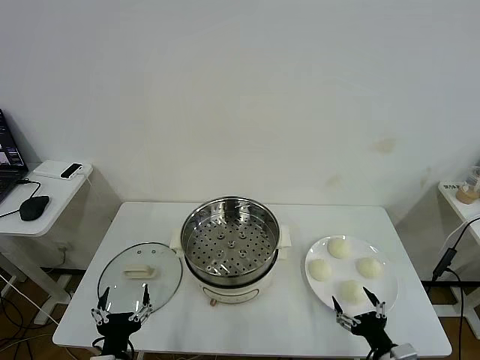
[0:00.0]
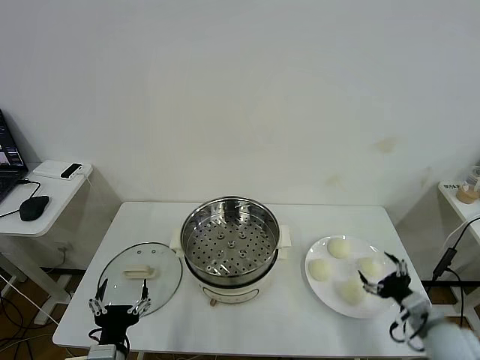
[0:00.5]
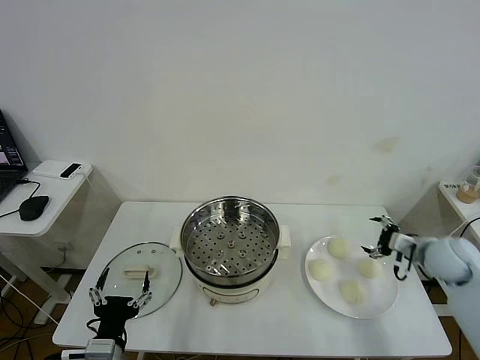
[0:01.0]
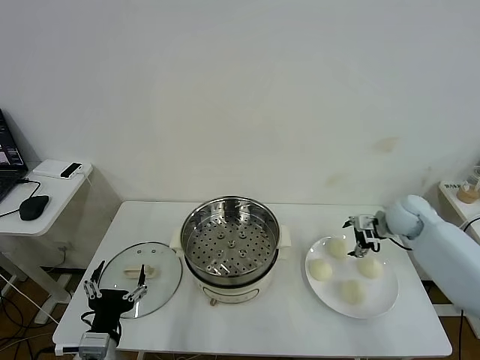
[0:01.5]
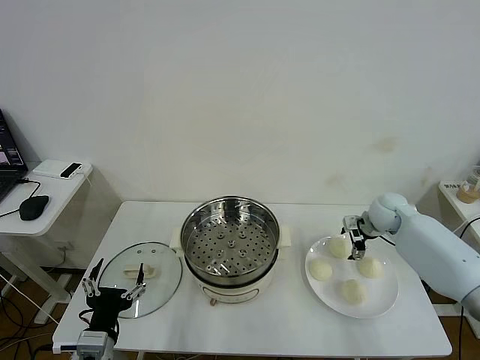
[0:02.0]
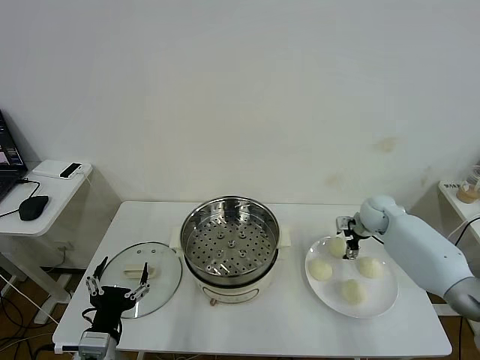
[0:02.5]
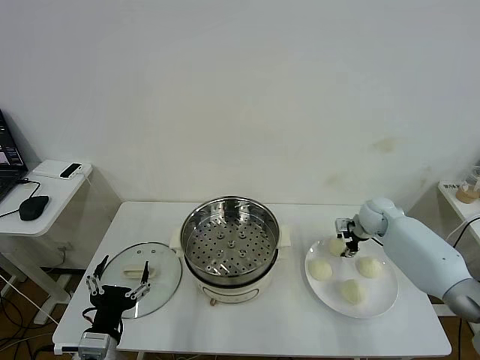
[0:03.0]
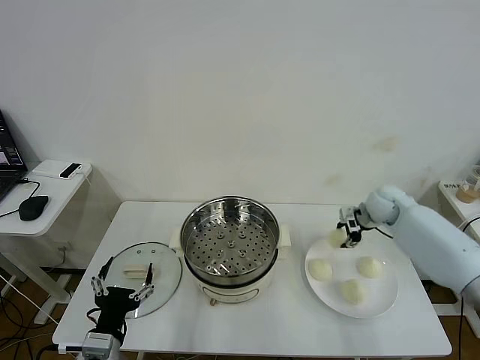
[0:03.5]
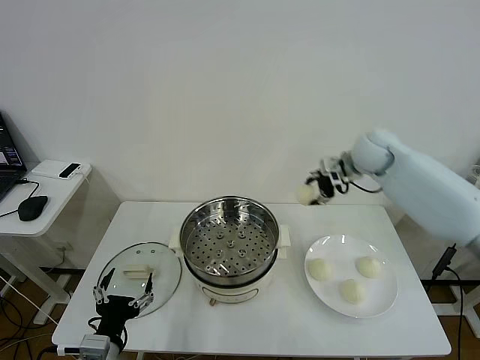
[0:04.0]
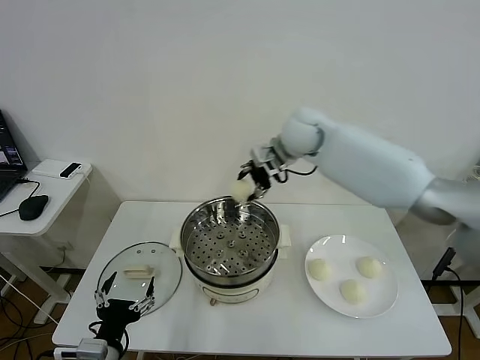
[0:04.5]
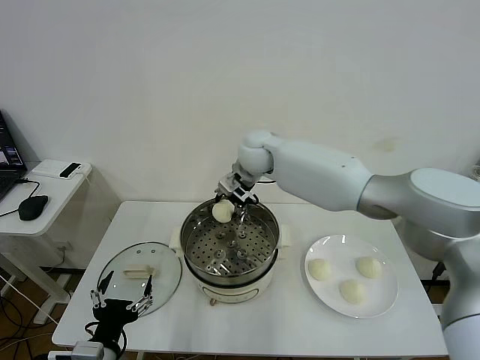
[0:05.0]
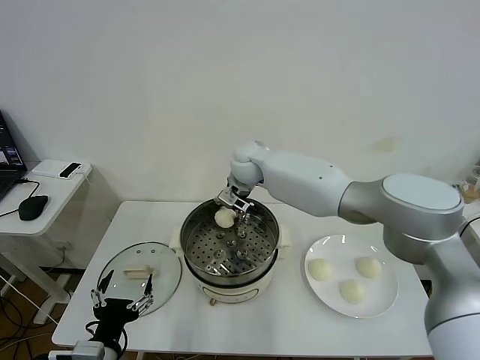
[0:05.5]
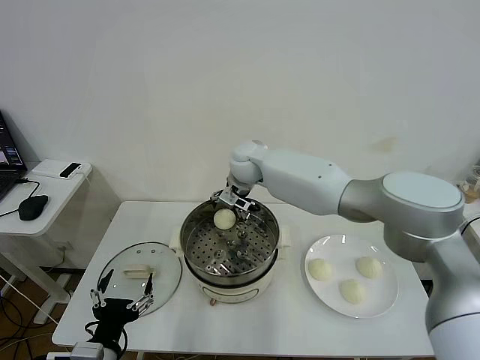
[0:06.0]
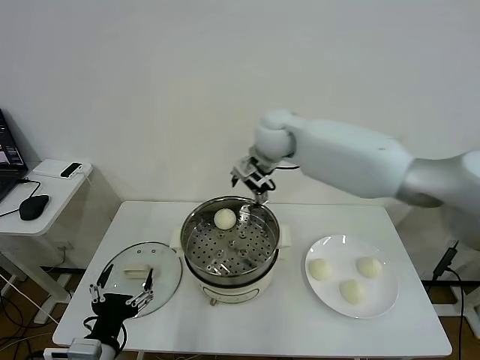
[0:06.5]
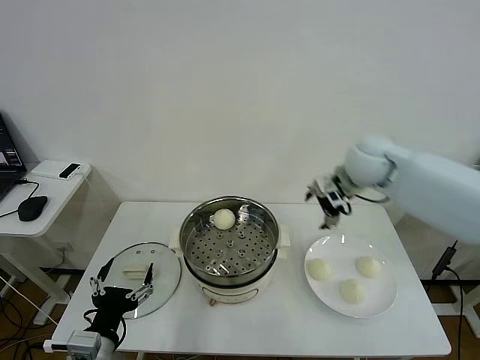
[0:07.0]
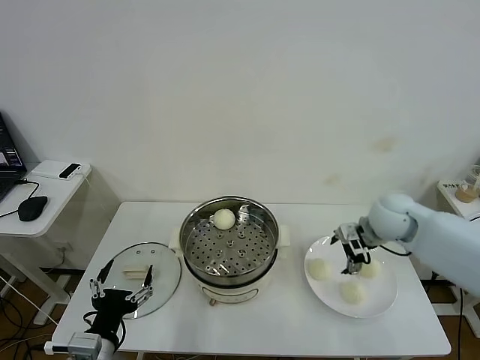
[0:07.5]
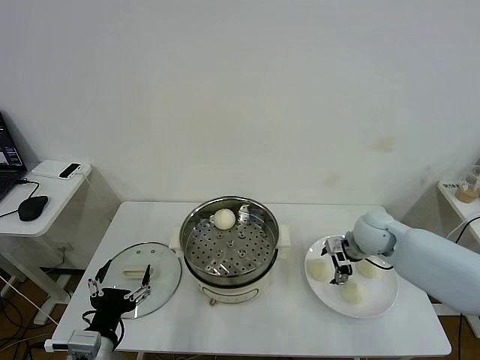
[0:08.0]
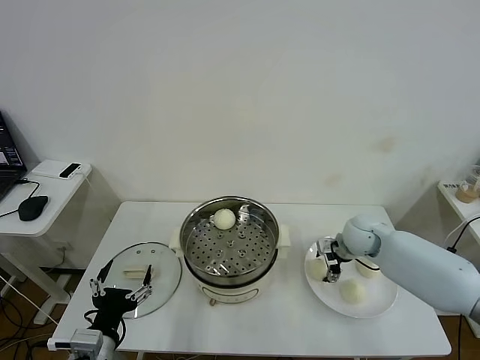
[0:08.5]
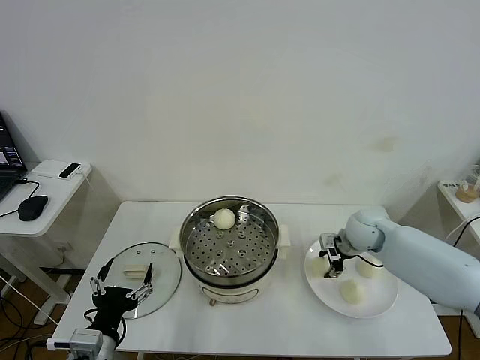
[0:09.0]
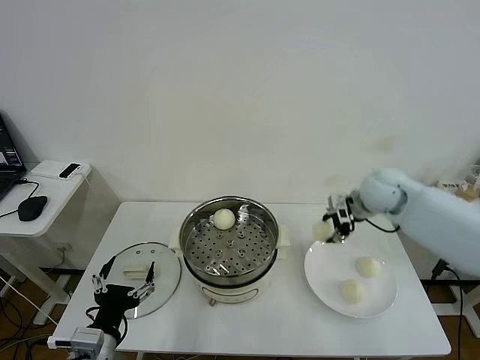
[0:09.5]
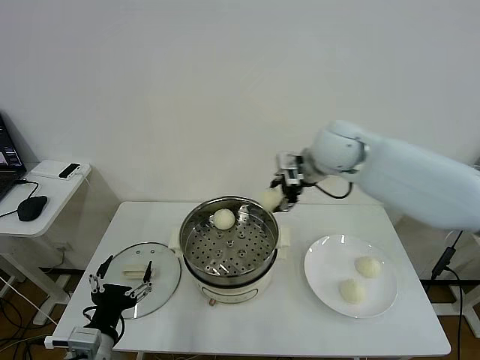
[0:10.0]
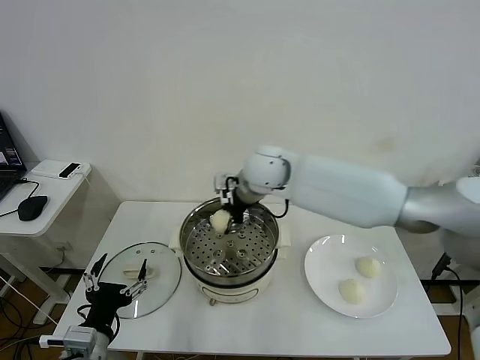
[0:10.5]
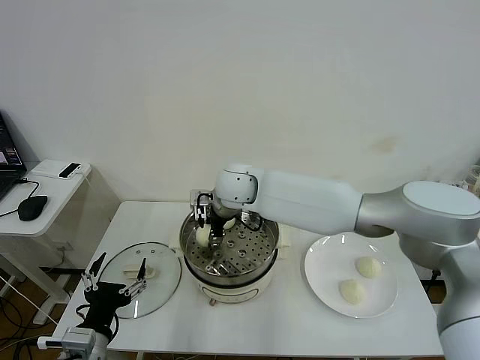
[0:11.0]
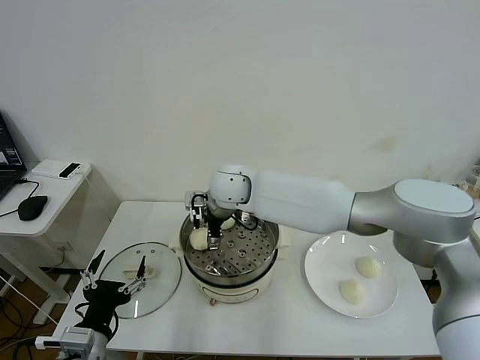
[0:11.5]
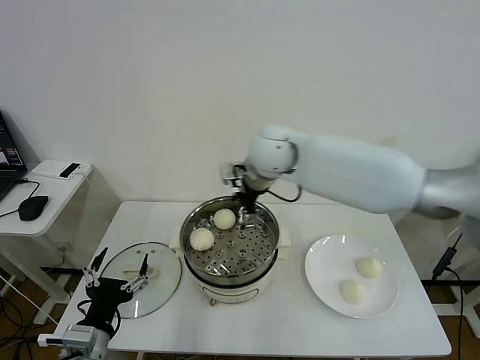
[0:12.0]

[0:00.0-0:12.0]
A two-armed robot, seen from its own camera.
Task of the whole recording: take steamed baozi put them in steamer then cover it.
Step, 0:00.0 to 0:02.5: Grasp the baozi in the plate with right gripper.
Step, 0:03.5 to 0:05.5: Place the baozi on the steamer with right gripper.
Step, 0:06.0 to 0:08.5: Grasp the baozi in the plate with right gripper.
Step, 0:09.0 to 0:11.0: Place the baozi on the steamer with right gripper.
0:02.0 to 0:04.0: The right gripper is displaced upward and to the left by approximately 20 cm, and closes up.
0:04.0 to 0:06.0: The right gripper shifts approximately 25 cm to the left, and opens up.
0:06.0 to 0:08.0: The right gripper moves to the right and backward, roughly 30 cm.
0:08.0 to 0:10.0: The right gripper goes some 25 cm upward and to the left, and closes its fingers.
0:10.0 to 0:12.0: The right gripper is displaced to the left by some 10 cm, and opens up.

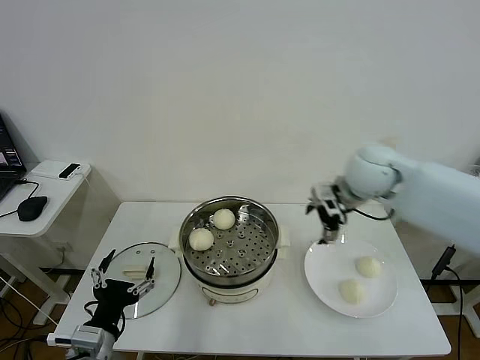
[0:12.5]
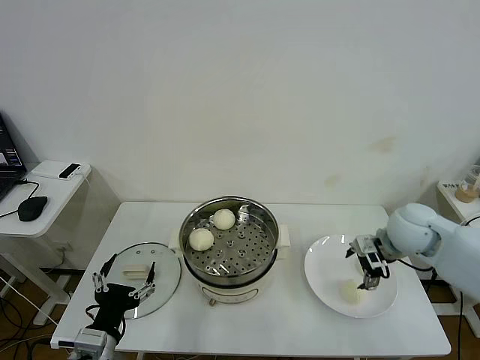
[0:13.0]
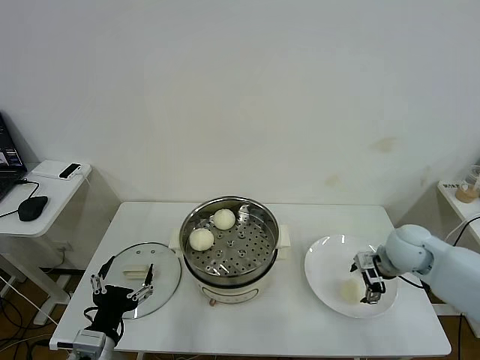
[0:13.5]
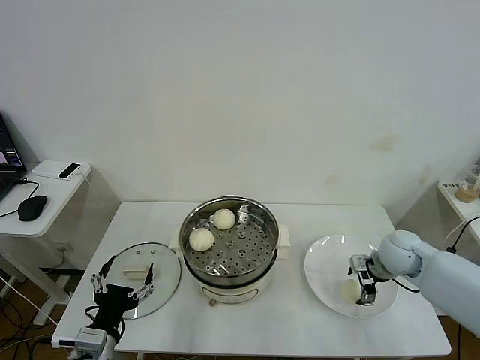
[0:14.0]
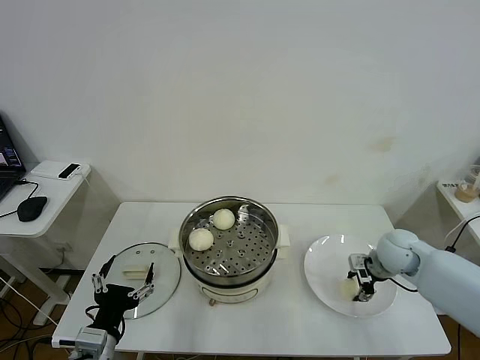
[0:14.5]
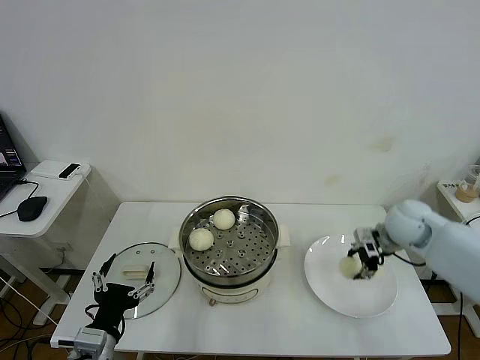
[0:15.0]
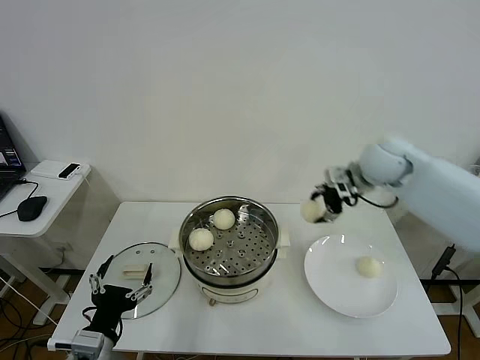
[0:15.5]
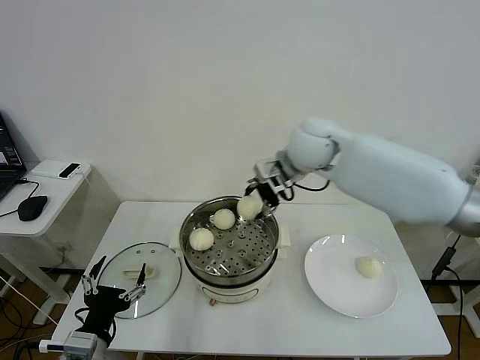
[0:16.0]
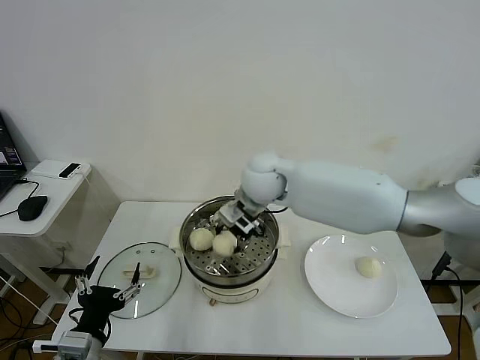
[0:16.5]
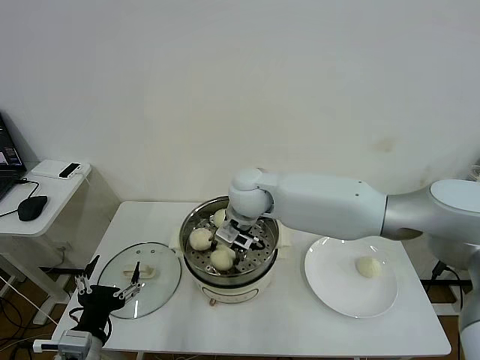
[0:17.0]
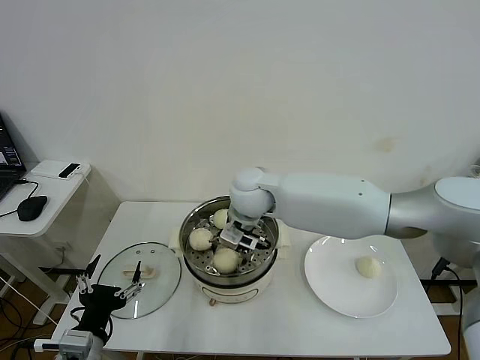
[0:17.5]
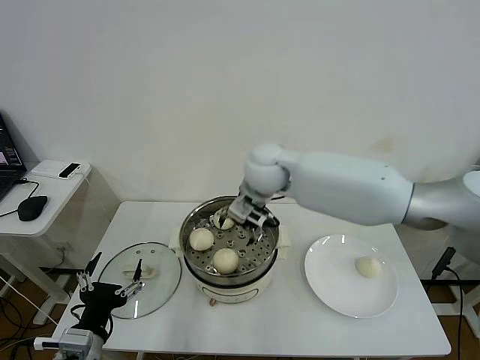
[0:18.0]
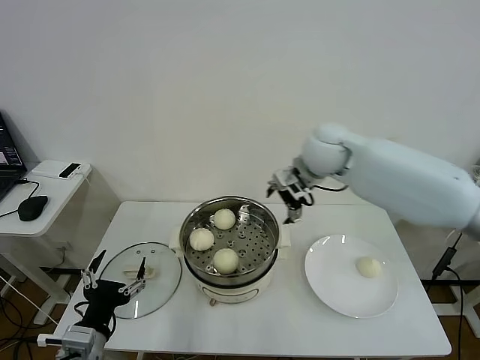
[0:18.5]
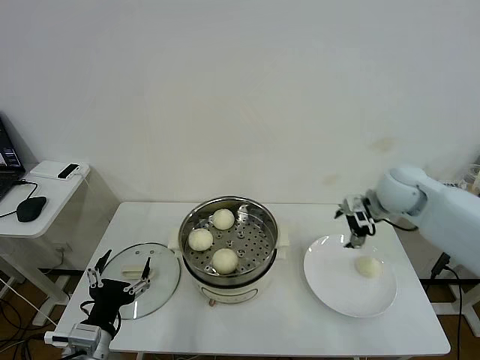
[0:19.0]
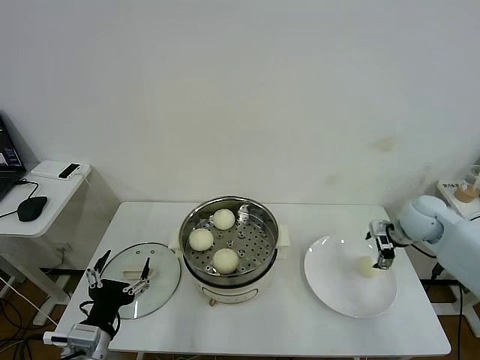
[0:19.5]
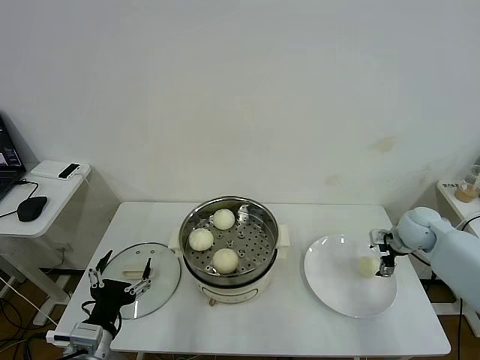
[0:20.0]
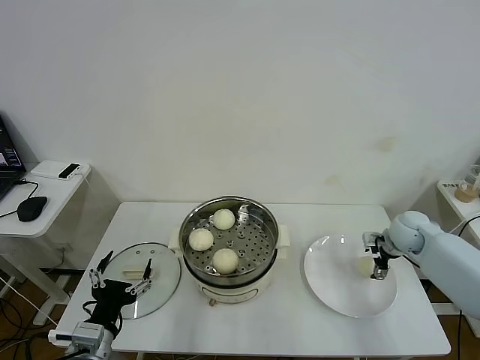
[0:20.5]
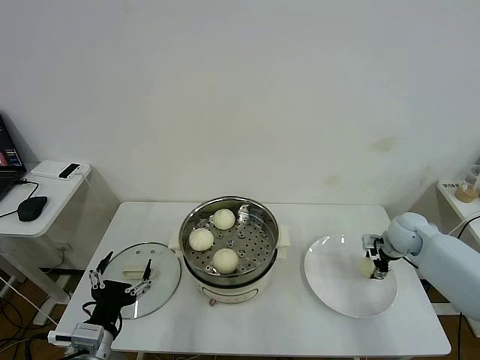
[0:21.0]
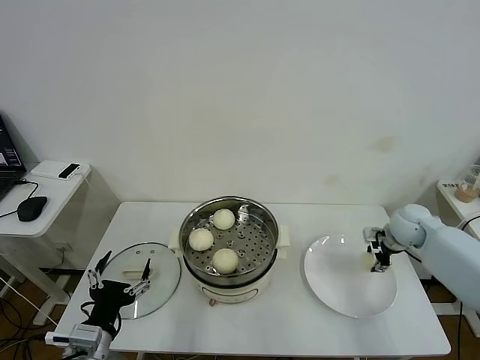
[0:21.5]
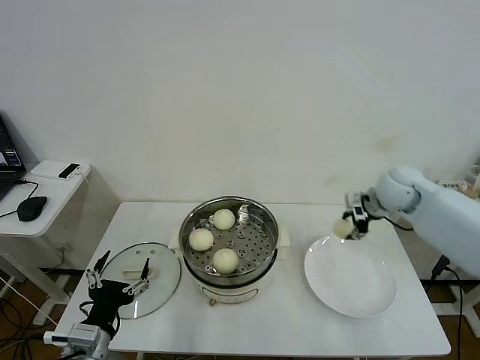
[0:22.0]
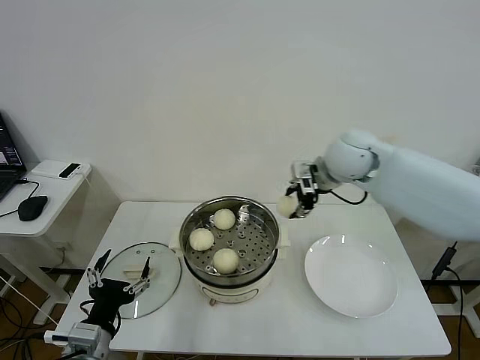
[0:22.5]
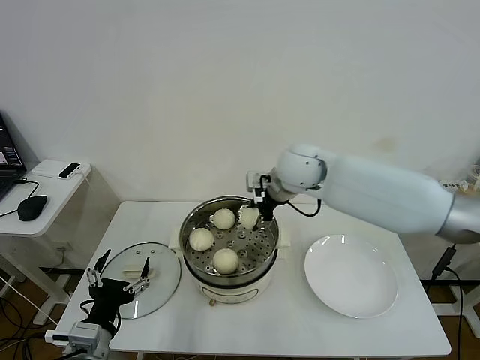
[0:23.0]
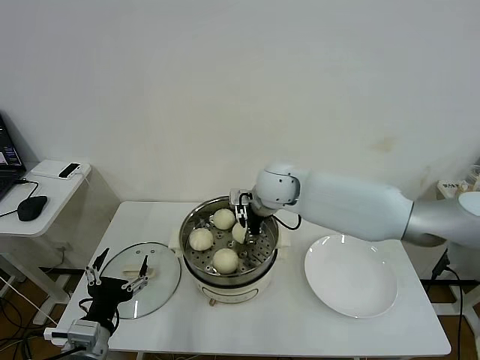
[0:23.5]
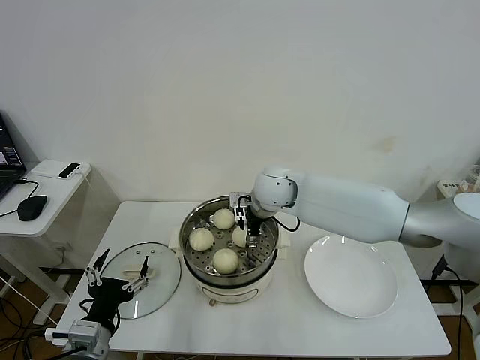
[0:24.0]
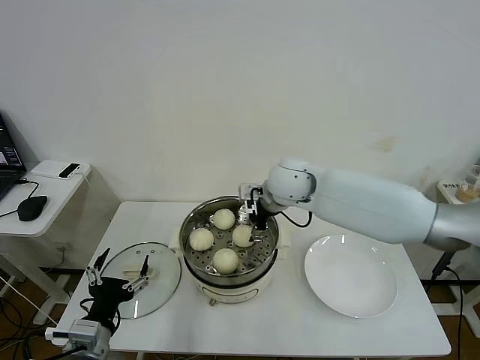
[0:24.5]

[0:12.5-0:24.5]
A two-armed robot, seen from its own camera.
Task of the whole recording: take steamed baozi put them in steamer then cover it.
Step, 0:12.5 to 0:14.0: Grasp the baozi in the plate with right gripper.
Step, 0:15.0 to 0:17.5: Place the baozi on the steamer with right gripper.
Step, 0:18.0 to 0:21.0: Grasp the baozi in the plate with right gripper.
Step, 0:21.5 to 0:24.0: Place the baozi on the steamer with right gripper.
0:12.5 to 0:14.5: The right gripper shifts roughly 25 cm downward and to the right, and closes up.
0:14.5 to 0:16.5: The right gripper goes some 35 cm to the left and upward.
0:16.5 to 0:18.5: The right gripper is displaced to the right and upward by approximately 15 cm, and opens.
0:18.5 to 0:20.5: The right gripper goes some 35 cm to the right and downward.
0:20.5 to 0:22.5: The right gripper moves upward and to the left, roughly 30 cm, and closes up.
0:22.5 to 0:24.5: The right gripper shifts some 15 cm to the left and downward, and opens.

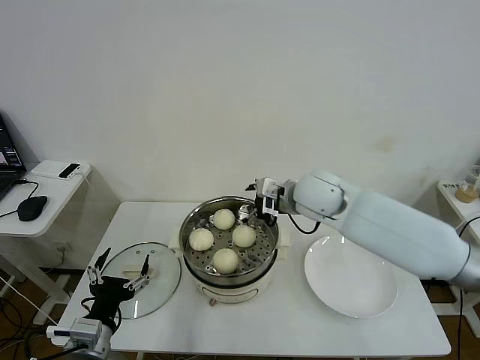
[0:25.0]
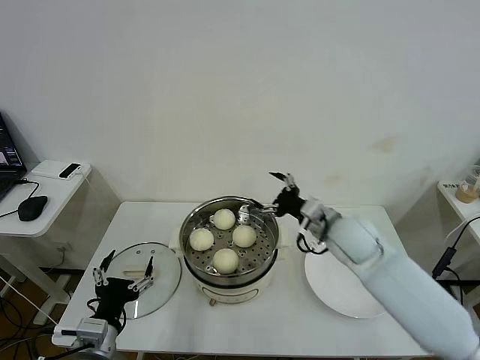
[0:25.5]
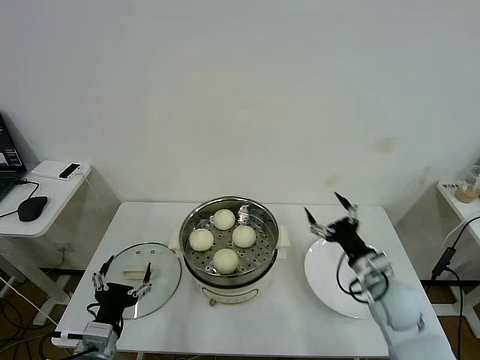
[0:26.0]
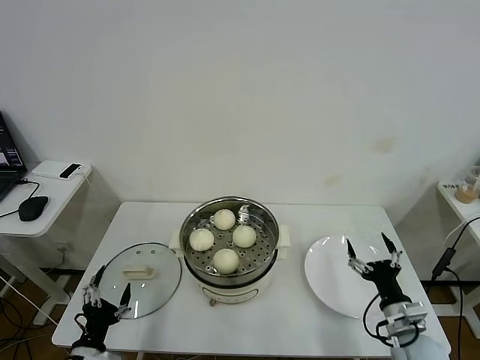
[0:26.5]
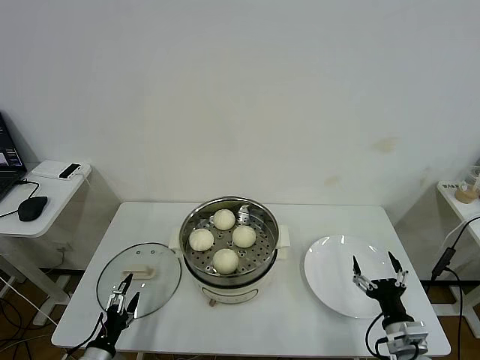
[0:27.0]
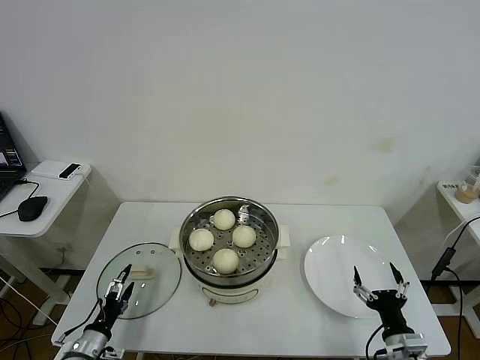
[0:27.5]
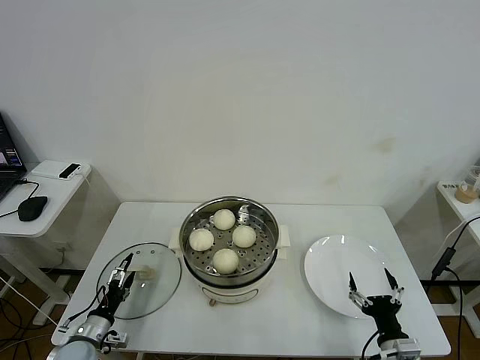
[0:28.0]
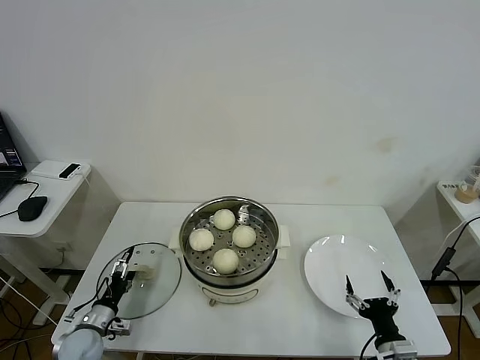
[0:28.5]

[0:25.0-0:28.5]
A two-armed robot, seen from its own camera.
Task of the whole recording: take steamed baozi put them in steamer then cover it.
0:25.0 to 0:27.0: The right gripper shifts roughly 40 cm backward, downward and to the right. The left gripper shifts roughly 15 cm downward and to the left.
0:27.0 to 0:28.5: The left gripper travels forward by roughly 10 cm.
